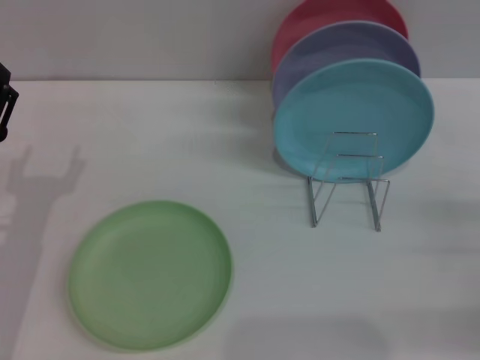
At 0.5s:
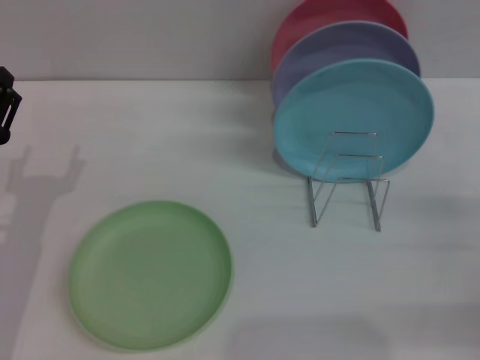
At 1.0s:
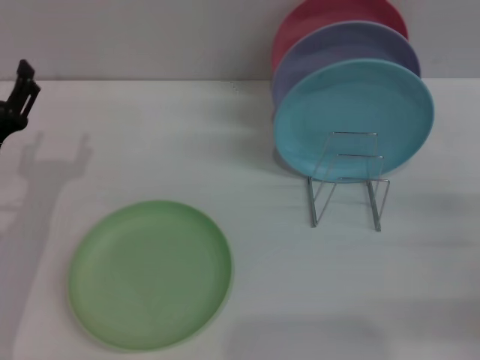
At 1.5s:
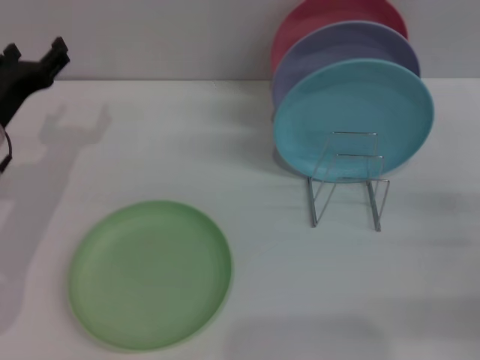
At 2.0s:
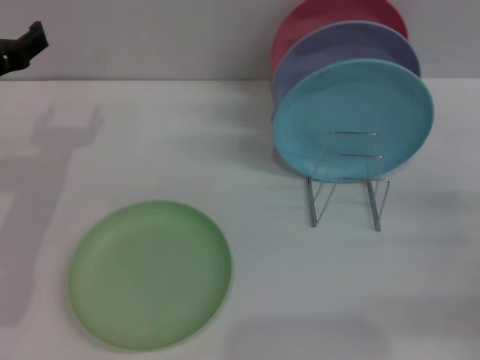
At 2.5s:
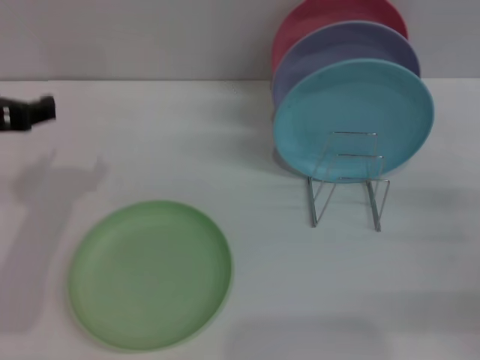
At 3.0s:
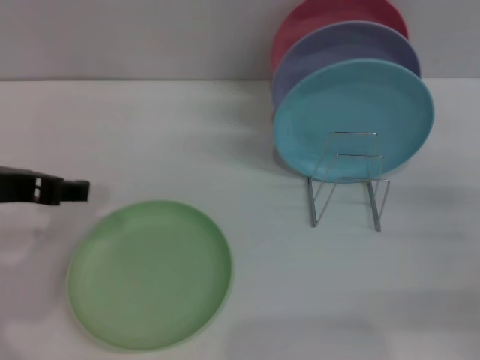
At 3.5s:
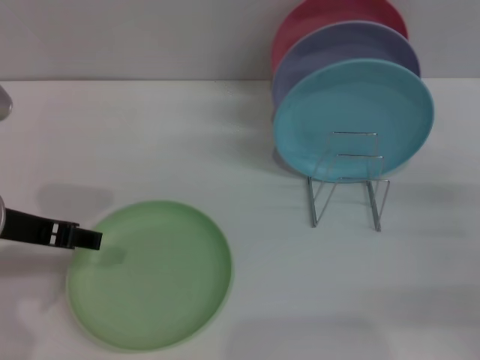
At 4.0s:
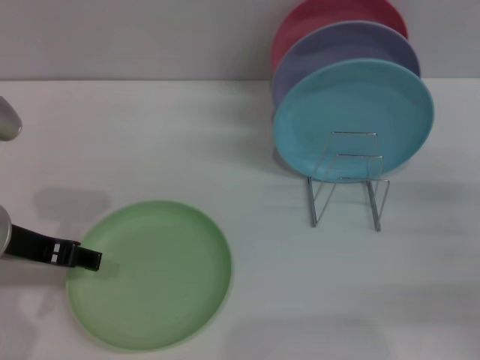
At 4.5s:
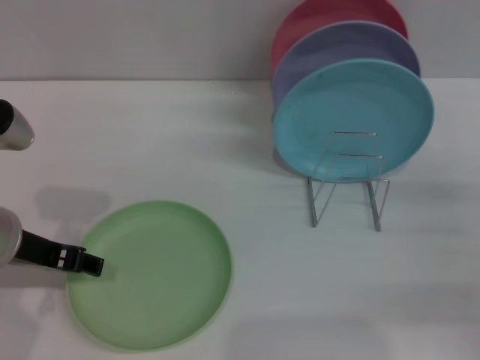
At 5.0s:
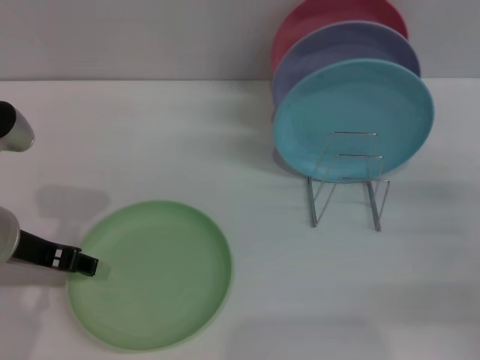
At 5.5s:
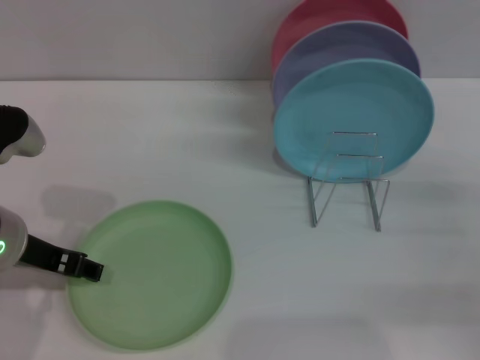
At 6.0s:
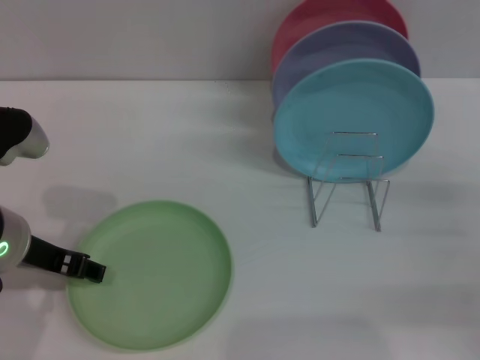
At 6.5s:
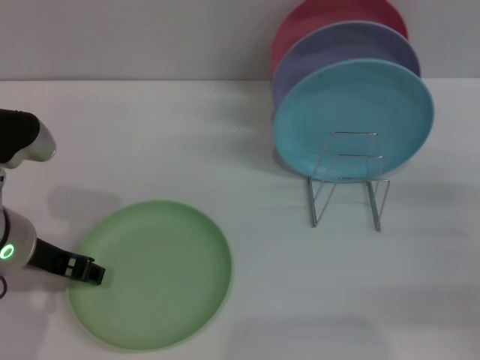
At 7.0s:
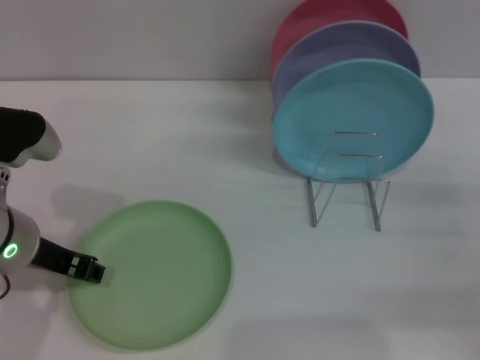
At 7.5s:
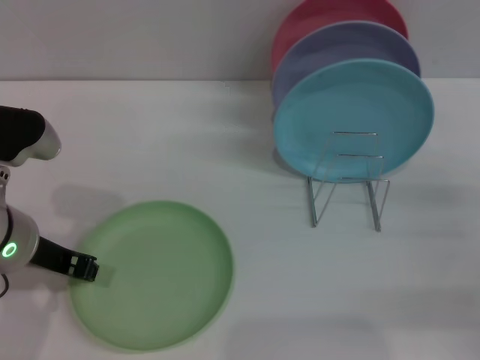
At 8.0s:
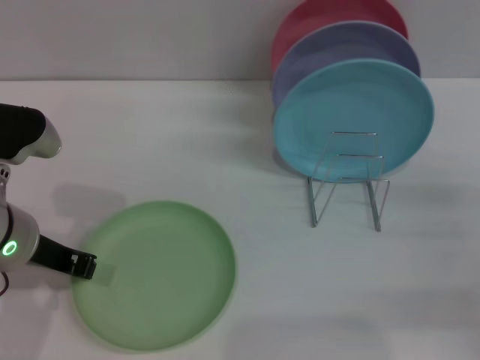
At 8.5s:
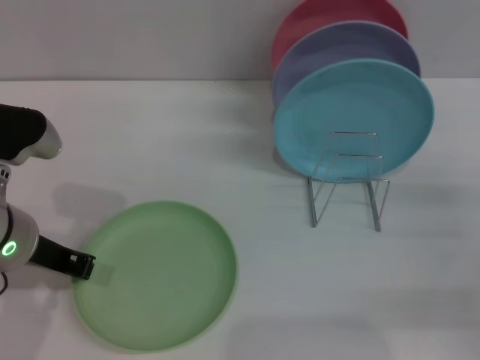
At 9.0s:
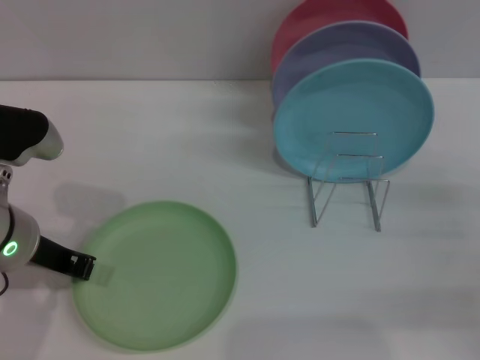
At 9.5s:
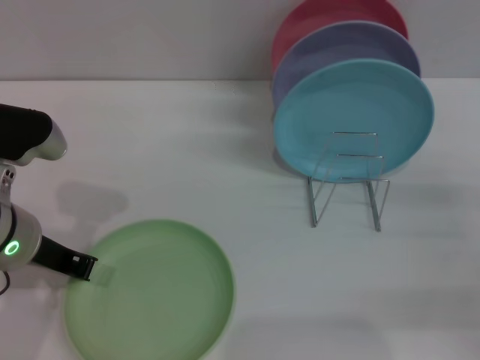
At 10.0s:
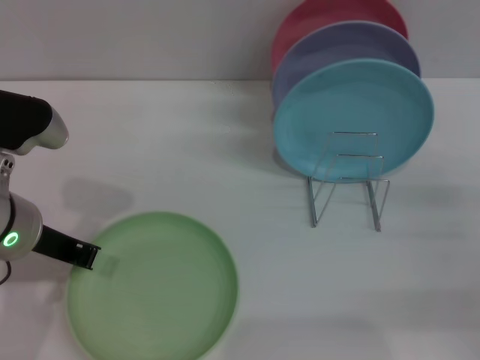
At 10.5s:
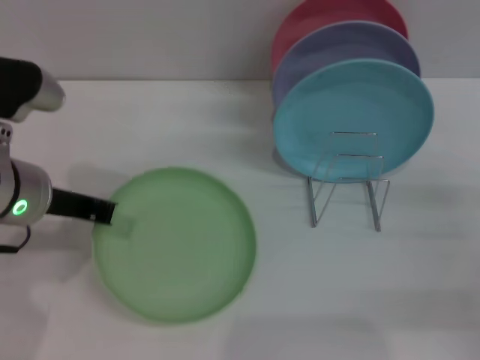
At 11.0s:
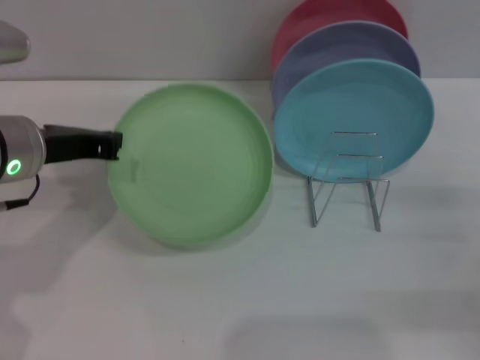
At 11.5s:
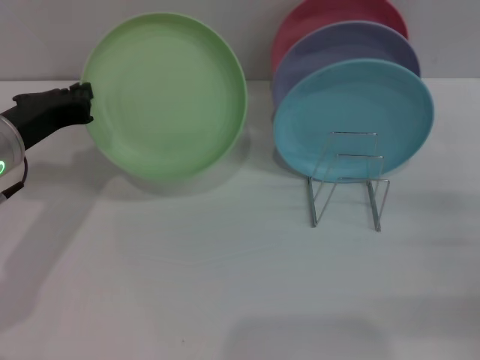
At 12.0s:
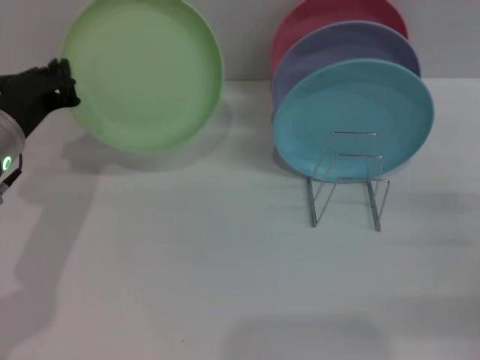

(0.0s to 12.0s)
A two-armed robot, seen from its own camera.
Task of the whole recording: Grip the plate with one hand, pass it to the other, then set it on the shelf.
Step, 0.0s - 10.5s: Pick up the plate with the left gripper.
0.0s - 2.0s: The left gripper heads upward and forward, covering some 15 cm.
2.0s - 4.0s: The left gripper shifts approximately 5 cm backward.
4.0s - 6.0s: The grippers move only a little.
6.0s - 8.0s: The left gripper closes.
8.0s - 10.0s: The two grippers keep their place.

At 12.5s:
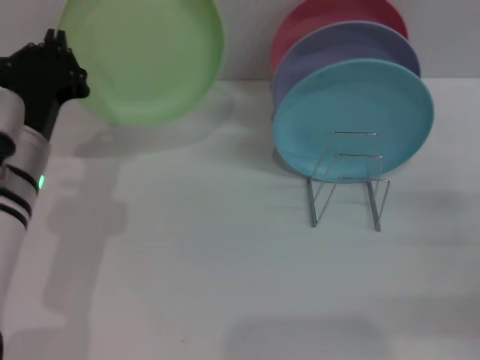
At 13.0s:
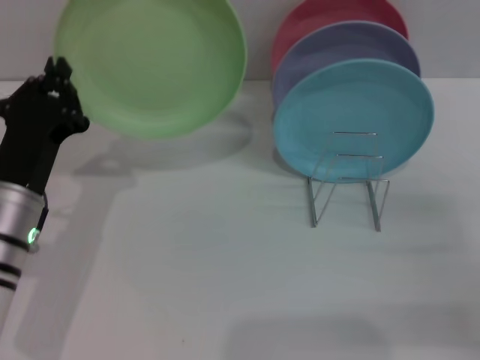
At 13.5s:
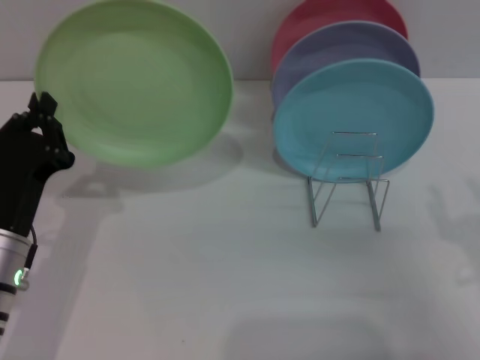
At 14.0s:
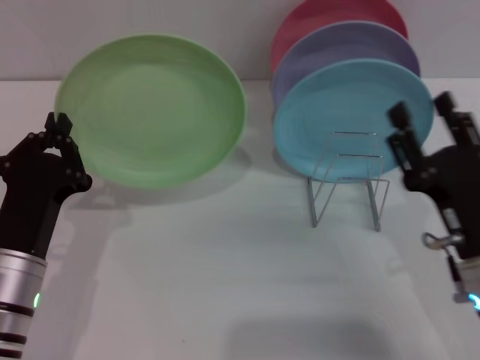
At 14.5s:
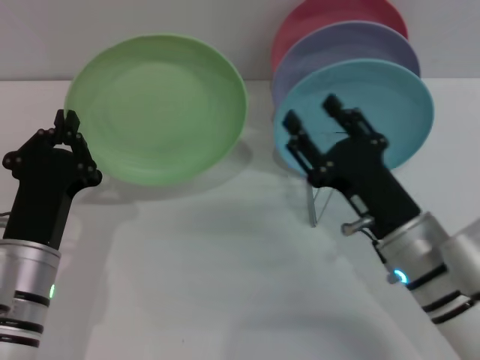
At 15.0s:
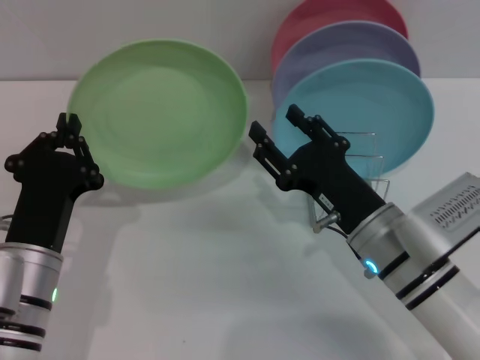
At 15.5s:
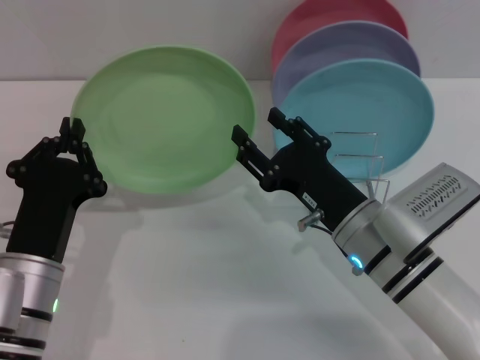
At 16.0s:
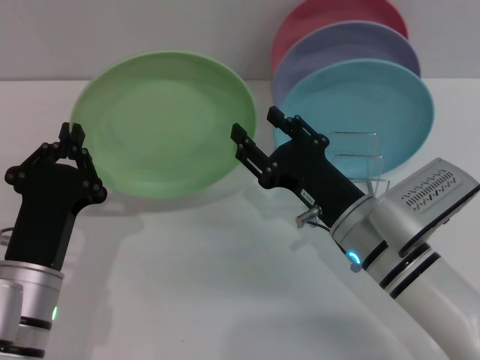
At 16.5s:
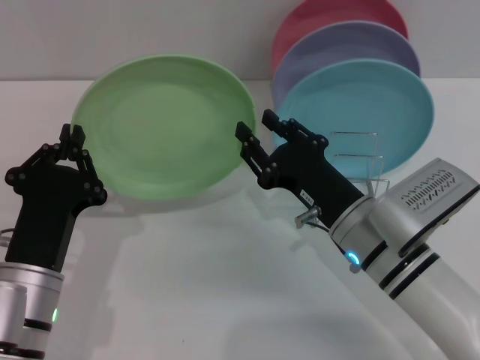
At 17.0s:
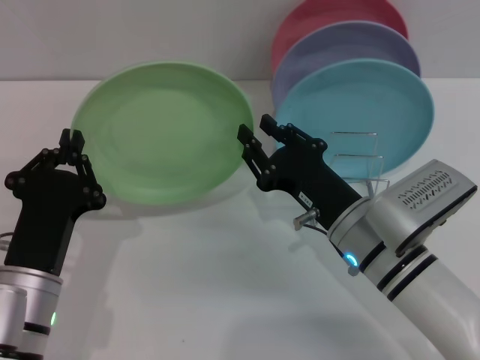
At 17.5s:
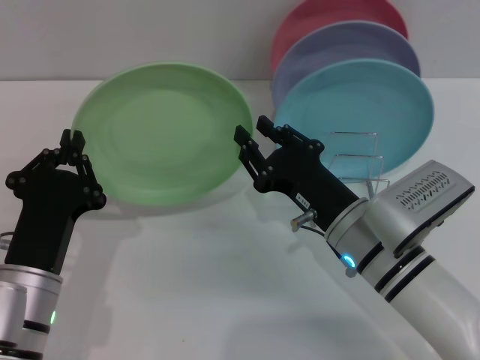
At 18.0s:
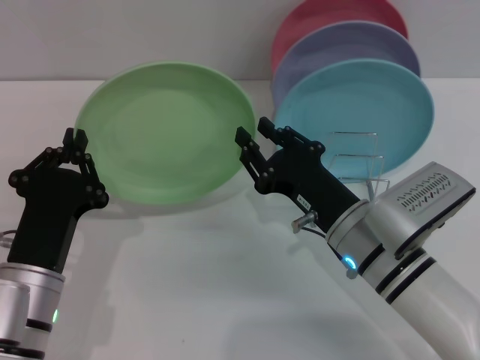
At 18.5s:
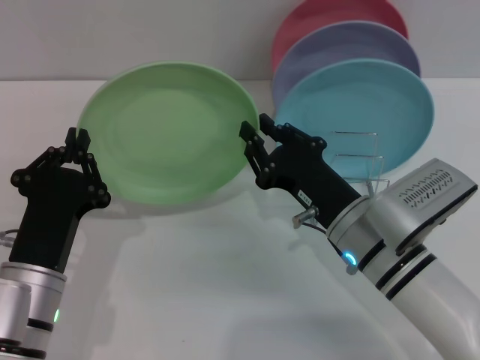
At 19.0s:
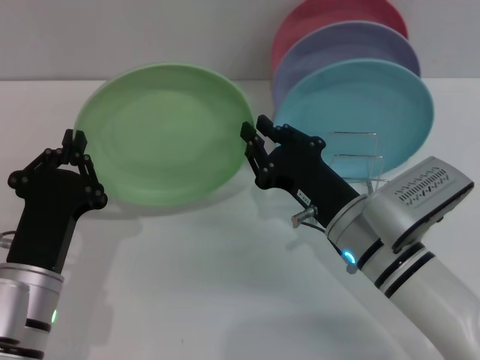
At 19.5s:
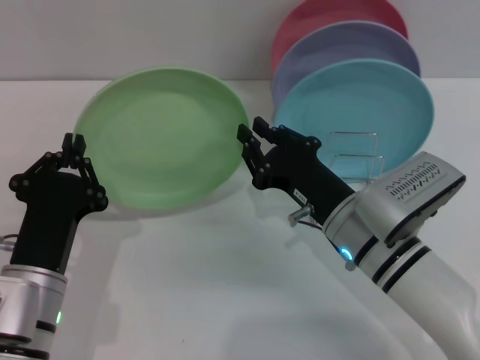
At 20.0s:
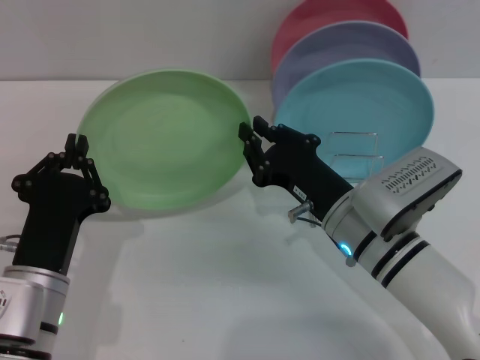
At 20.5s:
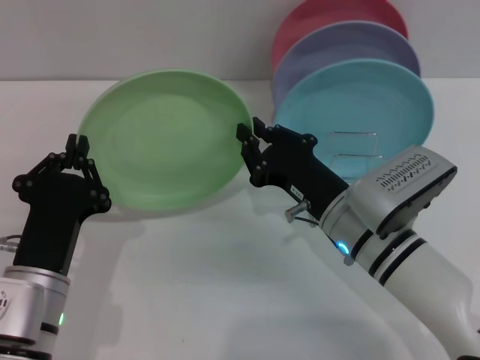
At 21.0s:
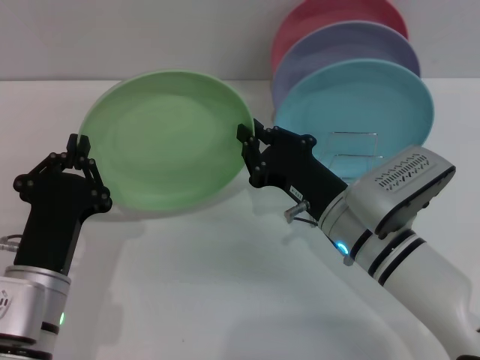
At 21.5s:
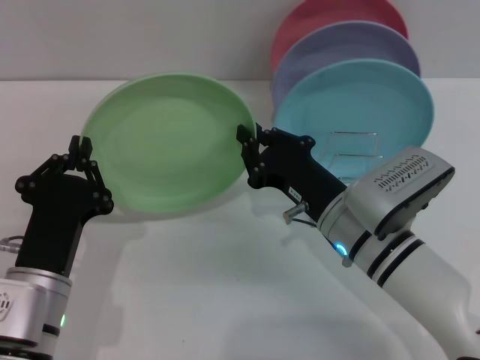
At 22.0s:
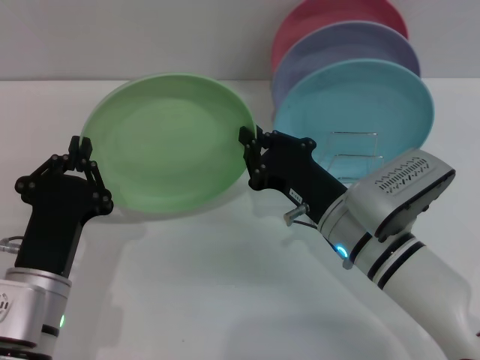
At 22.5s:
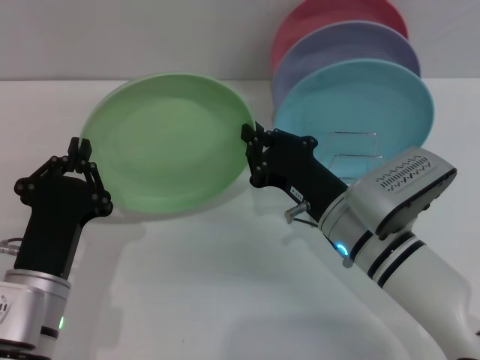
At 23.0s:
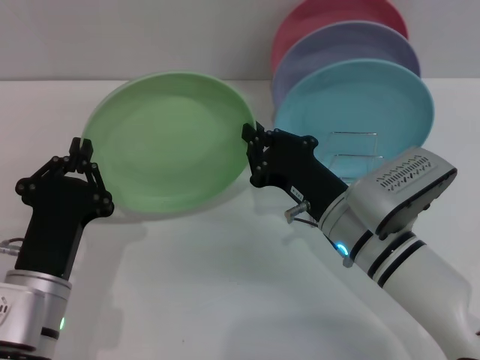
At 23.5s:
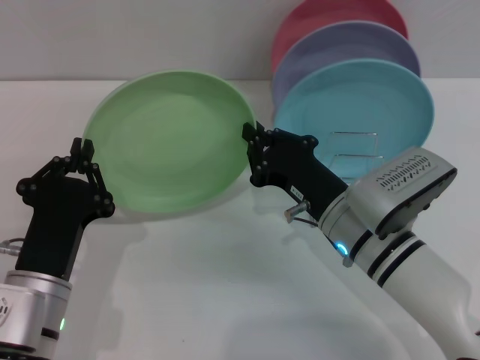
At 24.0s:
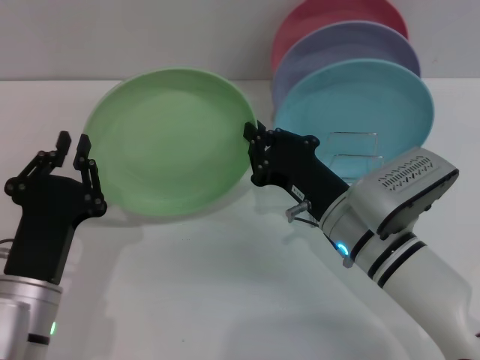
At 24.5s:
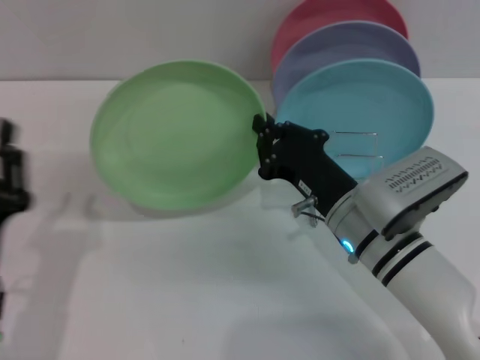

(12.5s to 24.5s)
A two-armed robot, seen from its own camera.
Task of the whole recording: Grip the plate with one hand, pass it to the other, then set it on the shelf.
12.5s - 14.5s: The right gripper heads to the left, covering approximately 20 cm; the left gripper shifts some 10 cm backward and downward.
16.5s - 18.5s: The right gripper closes.
18.5s - 20.5s: The grippers make only small movements.
20.5s - 22.5s: Both grippers stay about where they are.
22.5s - 24.5s: The left gripper shifts by approximately 5 cm.

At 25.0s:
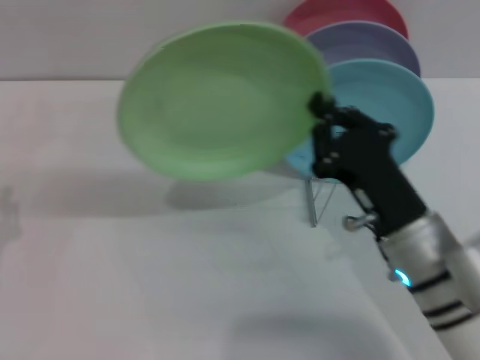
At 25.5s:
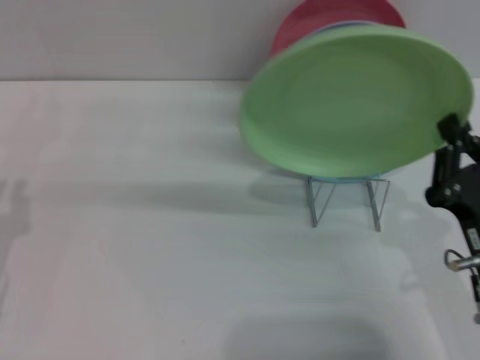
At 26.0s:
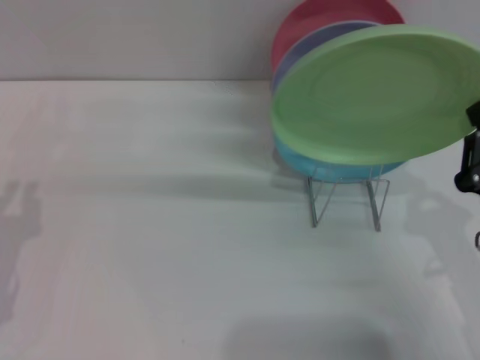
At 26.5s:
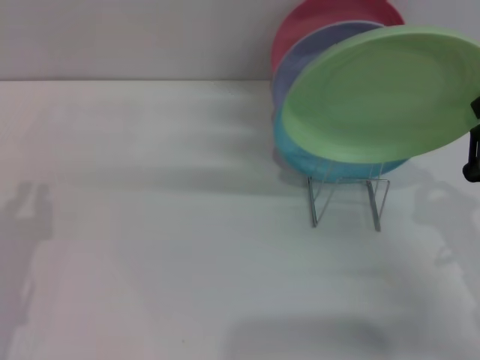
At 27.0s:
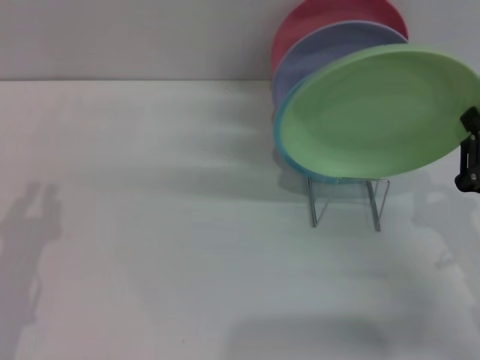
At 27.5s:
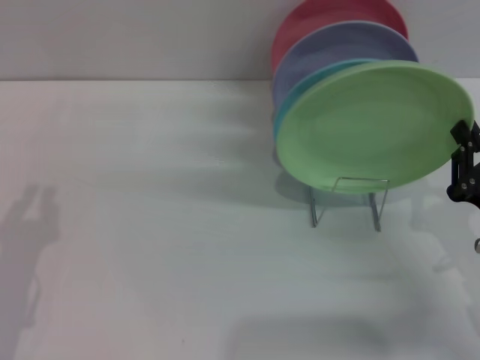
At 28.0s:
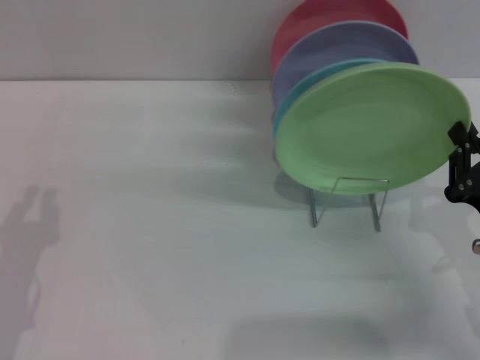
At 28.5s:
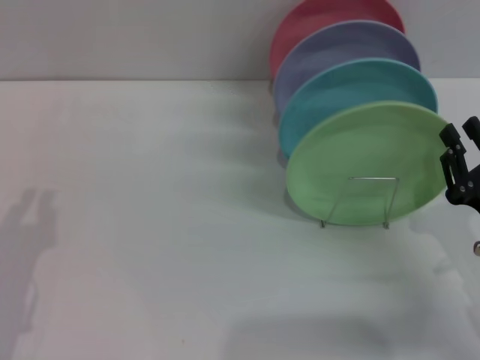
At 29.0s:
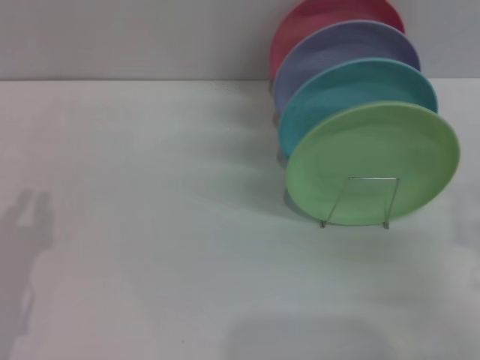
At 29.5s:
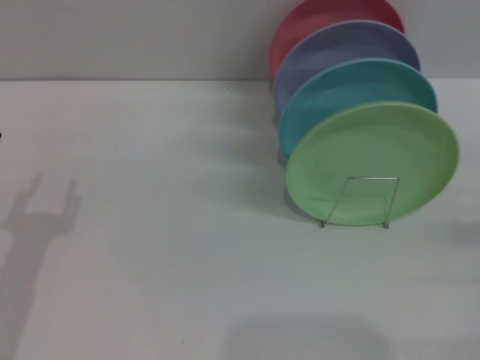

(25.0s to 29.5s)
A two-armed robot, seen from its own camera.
Task of the whole recording: Grip the plate with one hand, pass it to the other, then set it on the shelf.
Step, 25.5s - 28.5s: Place the plate on the shelf with the right gripper.
25.0s - 27.0s: The right gripper goes some 10 cm to the right.
27.0s - 29.5s: The right gripper shifts some 10 cm to the right, and opens its fingers.
